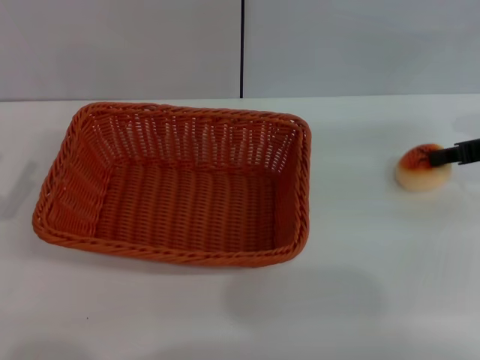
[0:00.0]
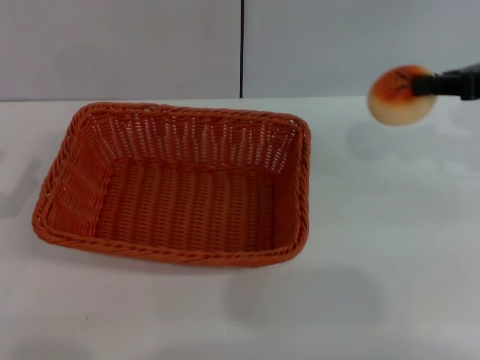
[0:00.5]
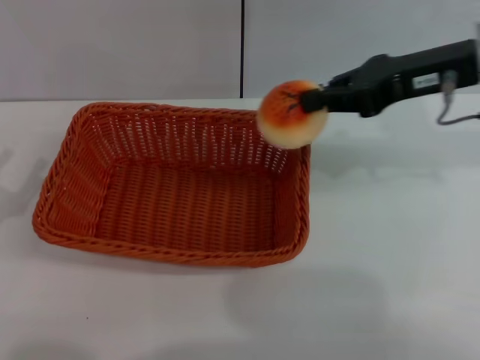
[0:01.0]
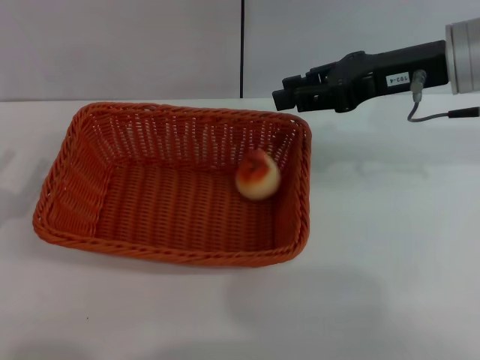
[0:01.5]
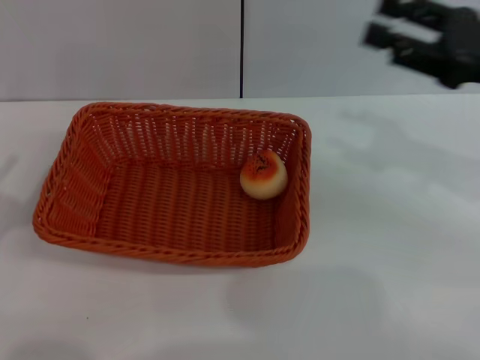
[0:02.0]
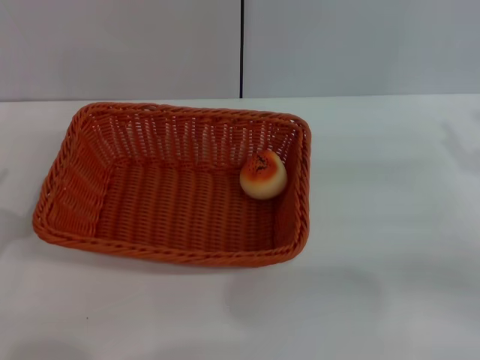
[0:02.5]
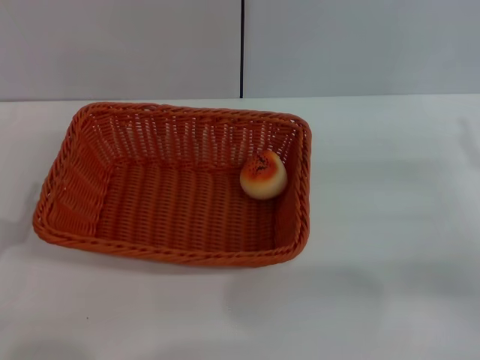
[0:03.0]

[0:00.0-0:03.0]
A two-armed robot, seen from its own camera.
Step, 0:01.0 to 0:01.5: Place the egg yolk pastry into the basket with the right gripper.
0:00.0 to 0:01.5: The right gripper heads to the left and upward, covering about 15 cm.
0:01.5 to 0:03.0: The left gripper ends up some 5 cm from where it was. The right gripper shifts approximately 20 cm downward, backward and to the right, and opens.
